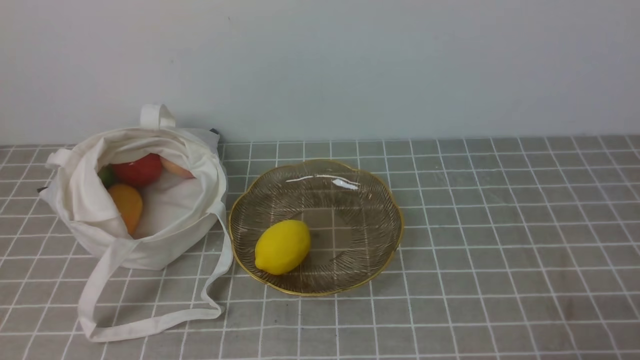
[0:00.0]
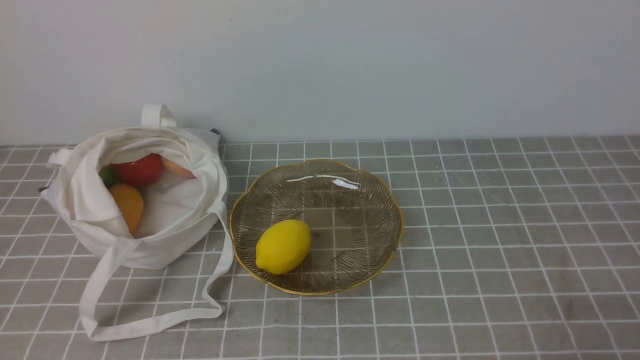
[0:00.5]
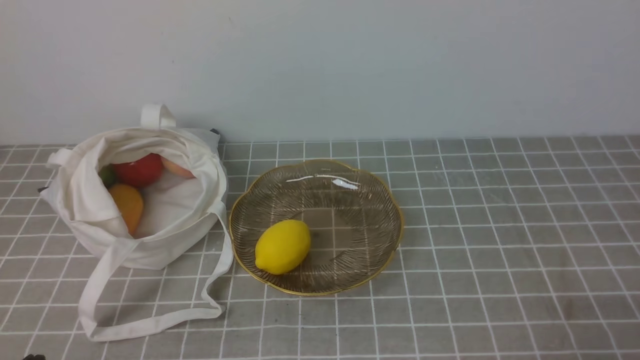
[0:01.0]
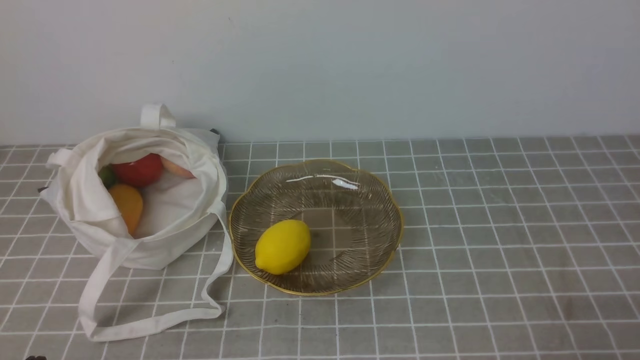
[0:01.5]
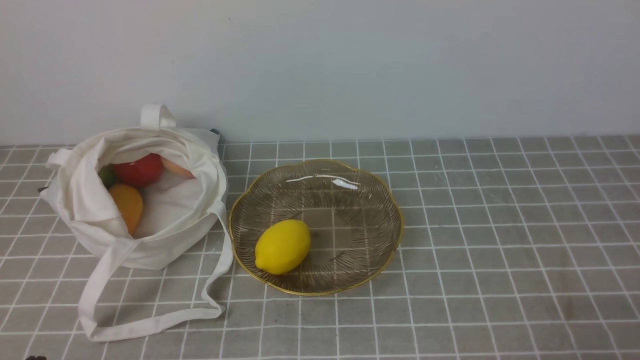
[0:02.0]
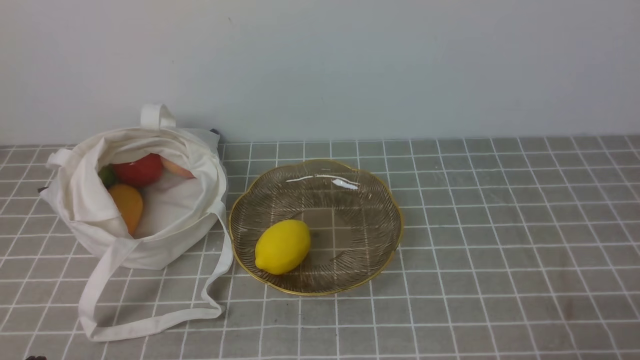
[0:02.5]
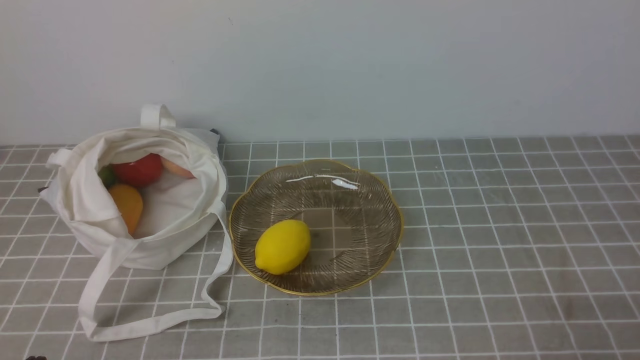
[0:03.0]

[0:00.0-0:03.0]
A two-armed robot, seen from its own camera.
0:01.5 to 0:03.0: Neither gripper changes place.

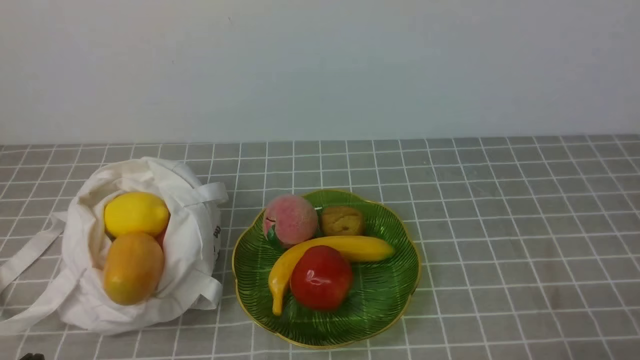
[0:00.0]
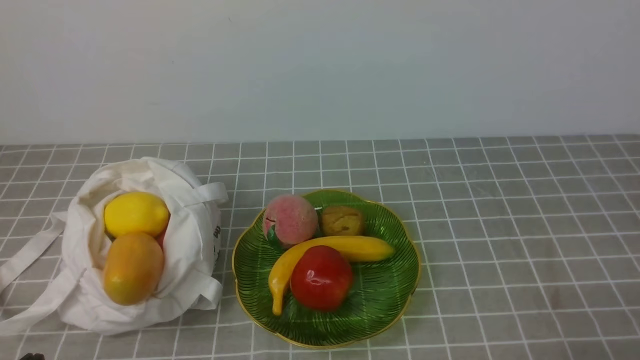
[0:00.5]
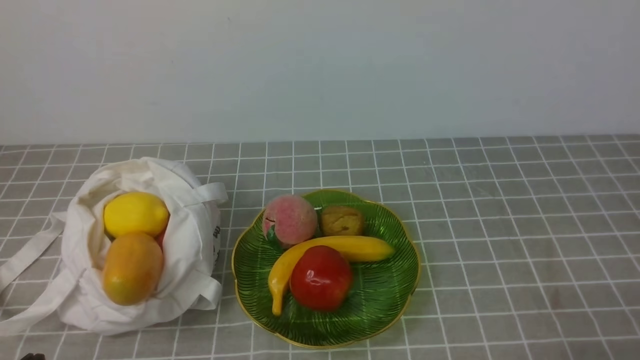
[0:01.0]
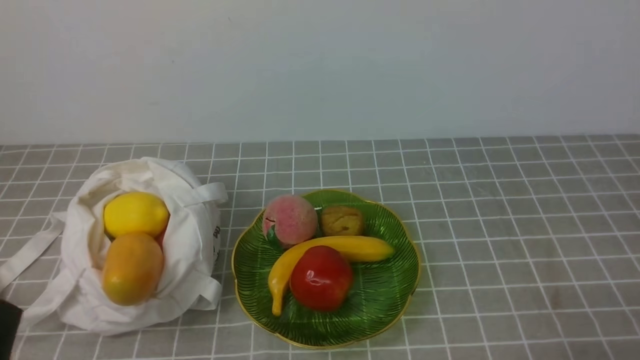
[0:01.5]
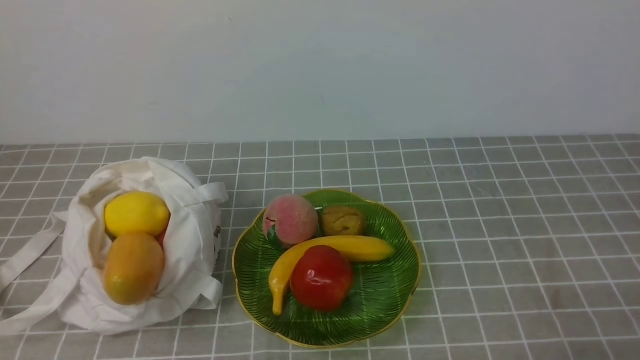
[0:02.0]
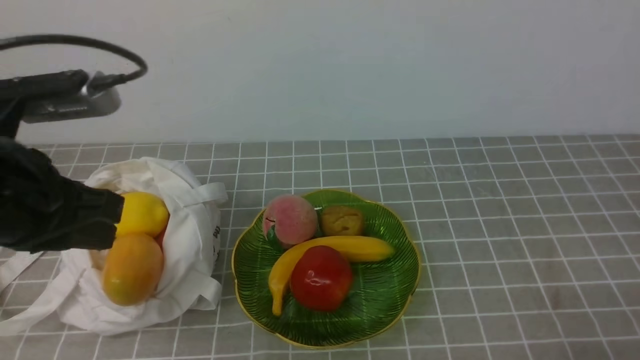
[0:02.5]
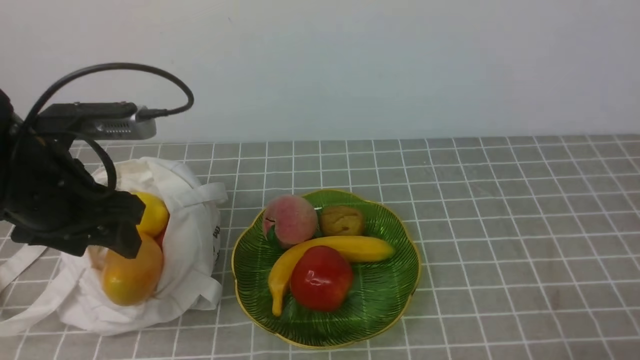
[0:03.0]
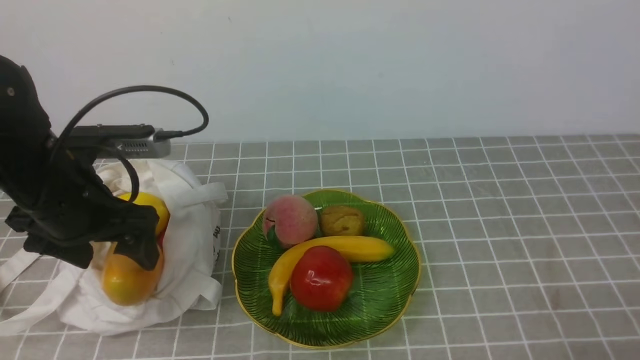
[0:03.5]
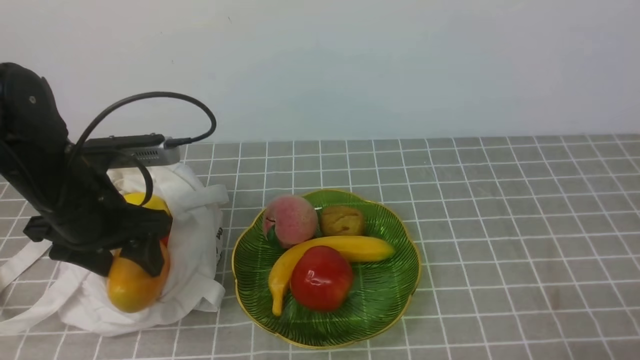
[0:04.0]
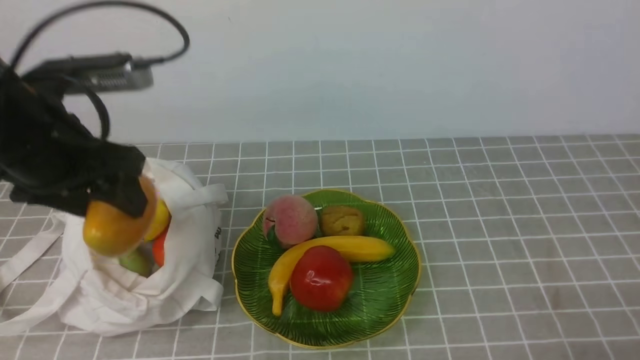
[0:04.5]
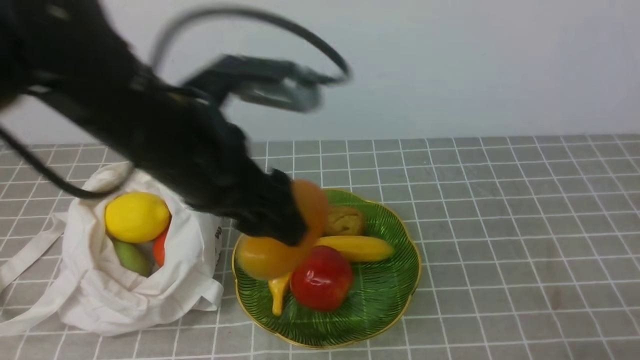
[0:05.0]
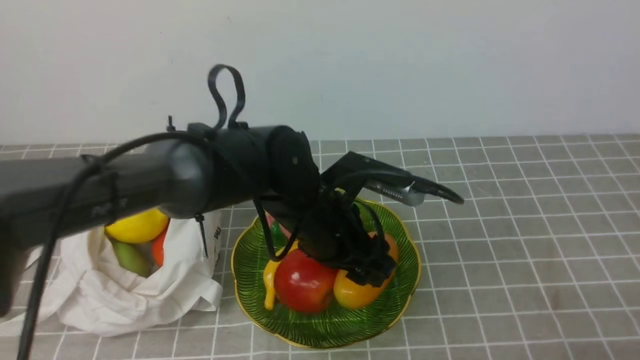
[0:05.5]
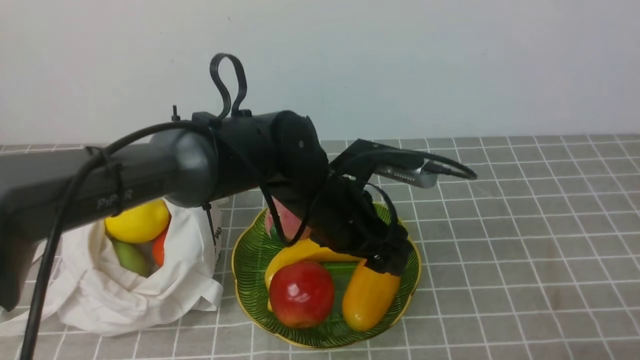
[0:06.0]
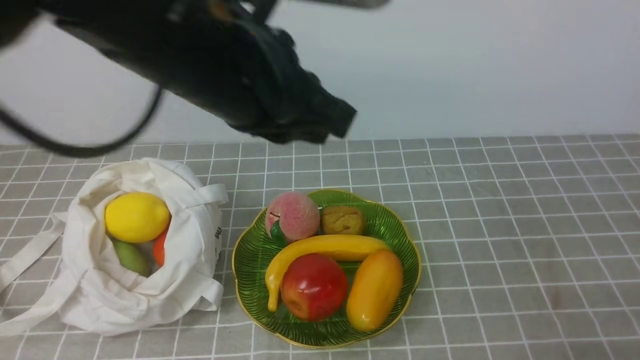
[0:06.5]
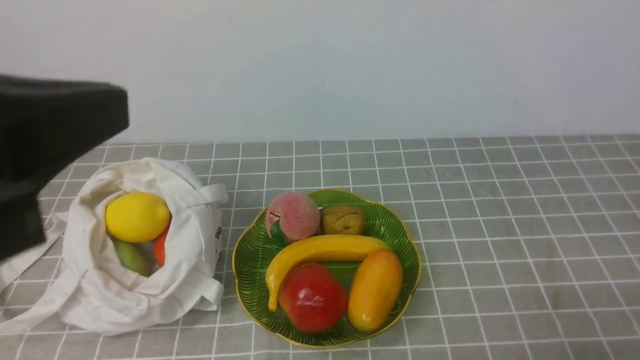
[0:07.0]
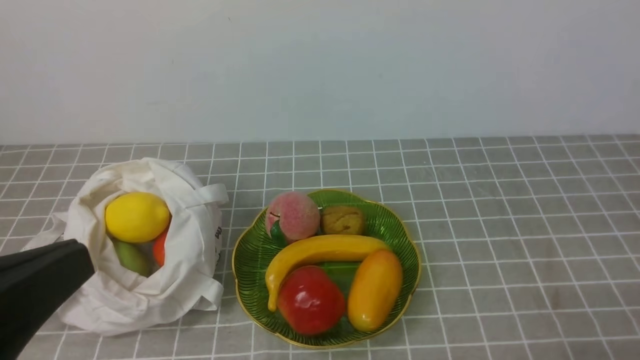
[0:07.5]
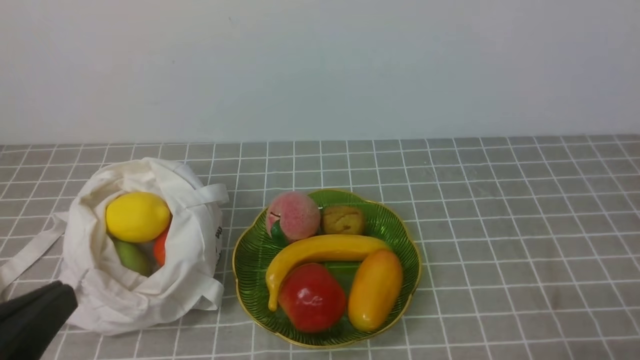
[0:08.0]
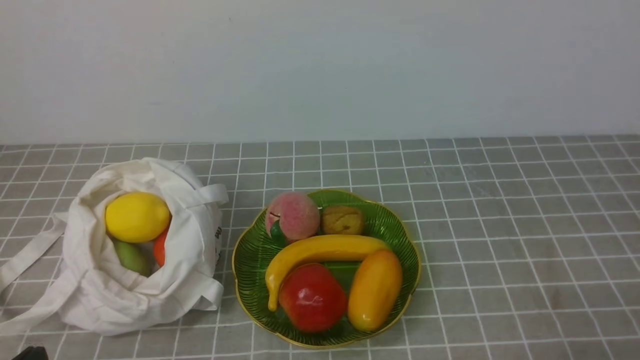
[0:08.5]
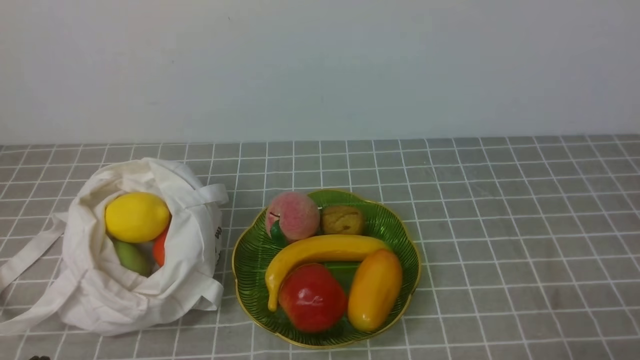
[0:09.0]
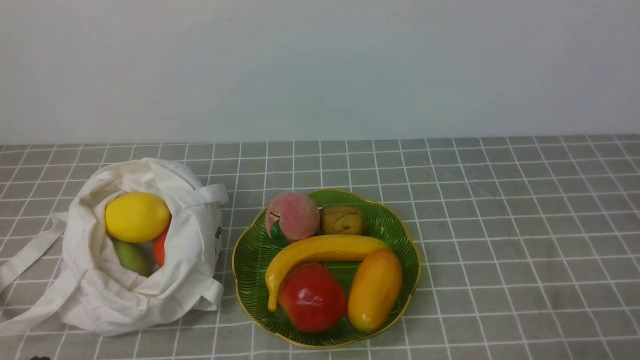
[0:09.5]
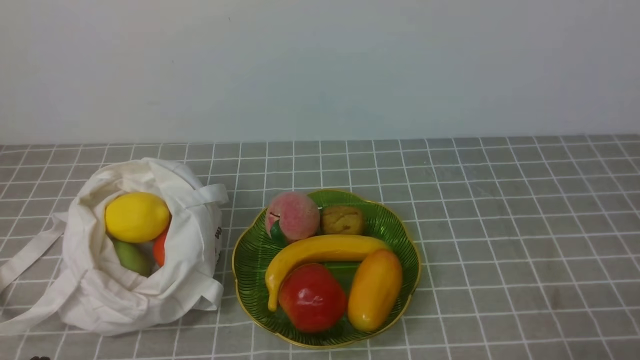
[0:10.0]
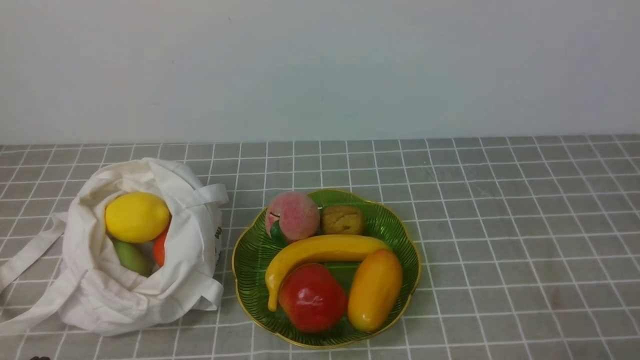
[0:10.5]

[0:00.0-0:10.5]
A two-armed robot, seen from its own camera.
Step, 0:00.0 to 0:04.0: use the left arm to grab a mango from the bag.
Step, 0:04.5 to 0:05.5: use the left arm to put the mango into the empty plate on the right.
0:02.0 to 0:04.0: The left gripper travels forward by roughly 20 cm, and opens up.
0:04.0 to 0:06.5: The left gripper shifts about 20 cm upward and to the right, and closes its fingers.
0:06.5 to 0:08.5: The left gripper is displaced downward, backward and to the left by roughly 35 cm.
0:08.5 to 0:10.5: Neither gripper changes place.
